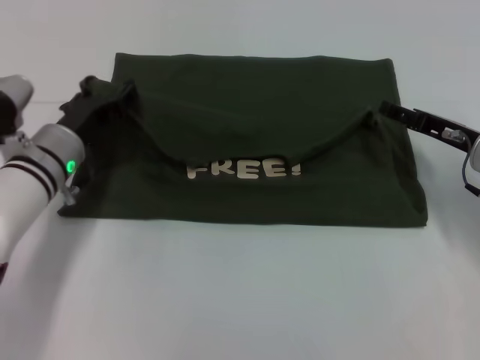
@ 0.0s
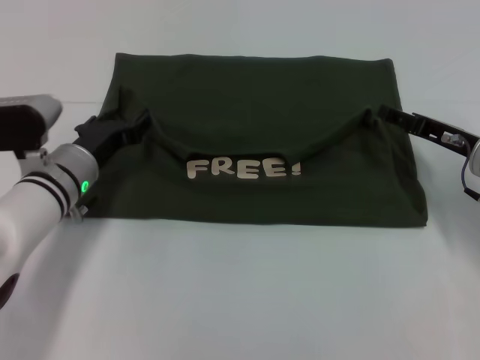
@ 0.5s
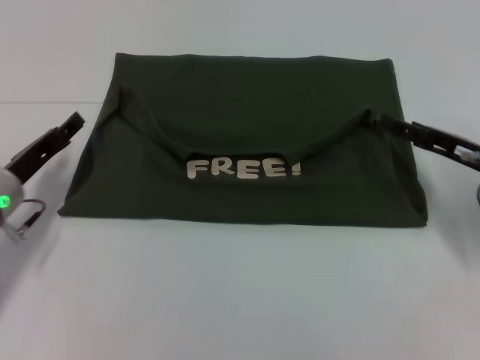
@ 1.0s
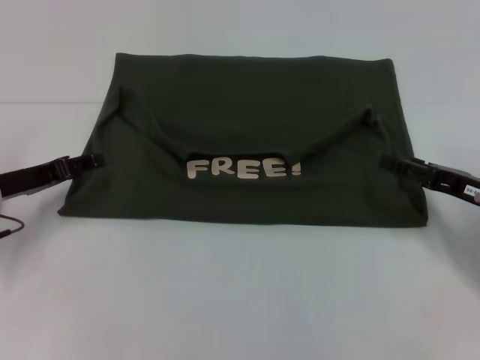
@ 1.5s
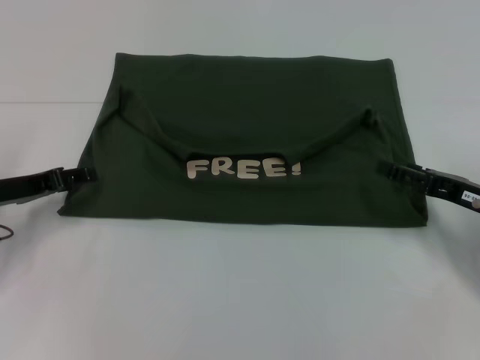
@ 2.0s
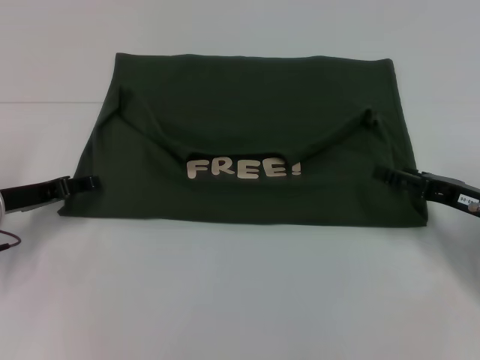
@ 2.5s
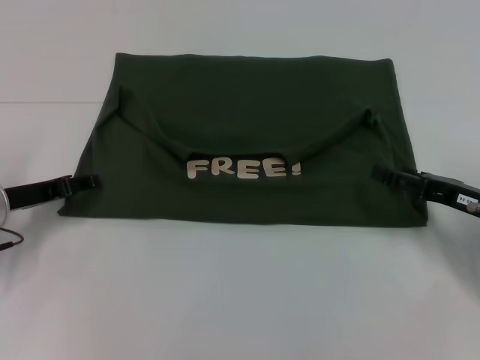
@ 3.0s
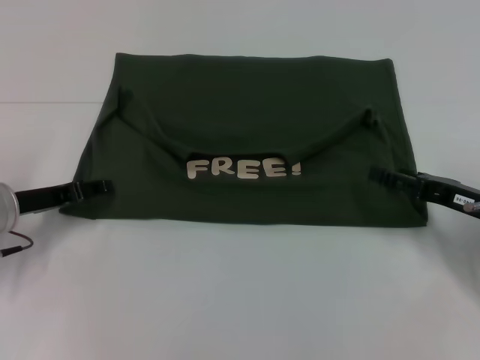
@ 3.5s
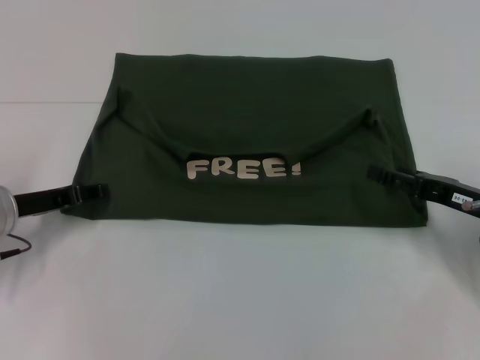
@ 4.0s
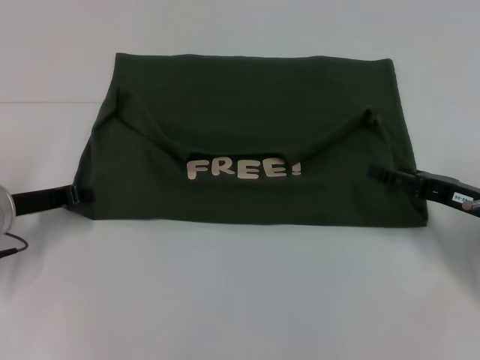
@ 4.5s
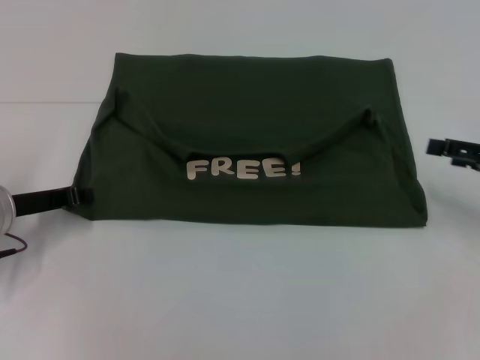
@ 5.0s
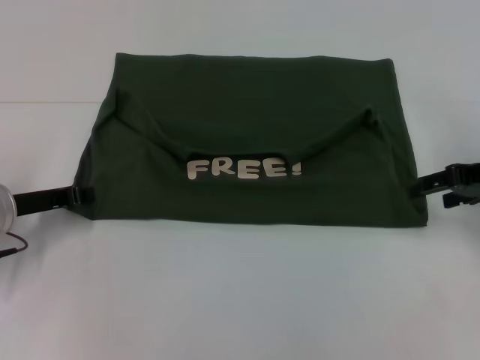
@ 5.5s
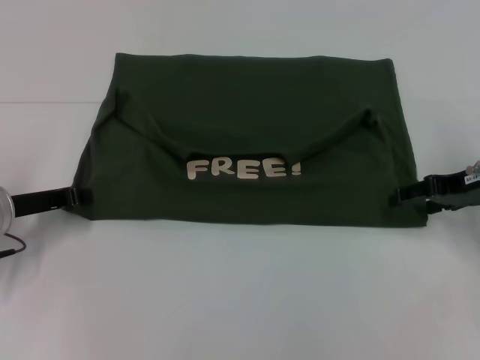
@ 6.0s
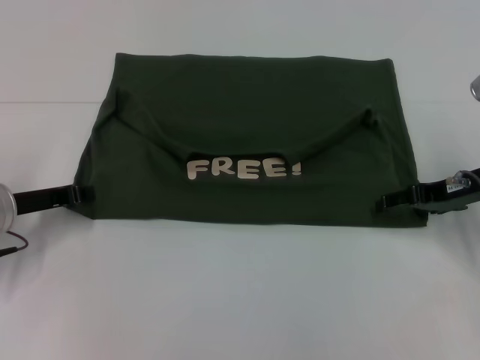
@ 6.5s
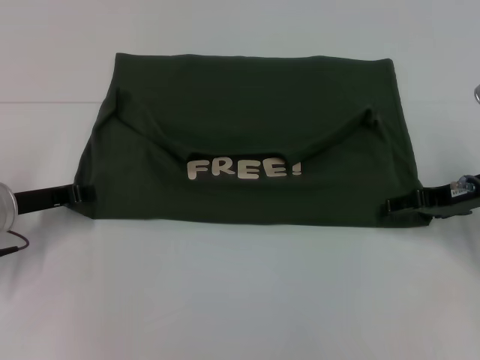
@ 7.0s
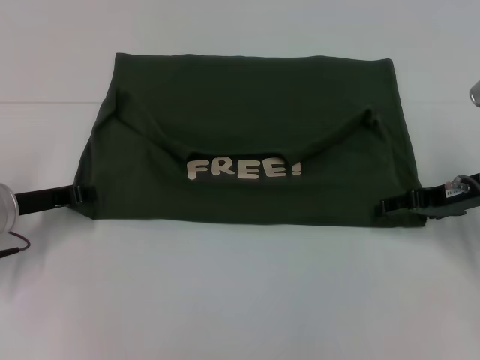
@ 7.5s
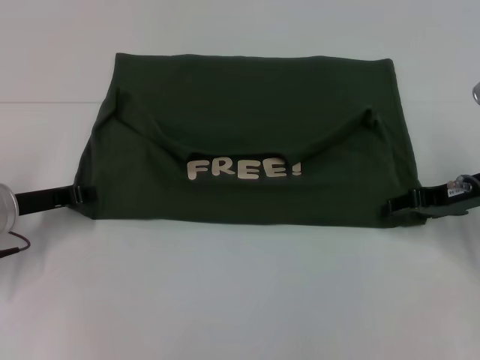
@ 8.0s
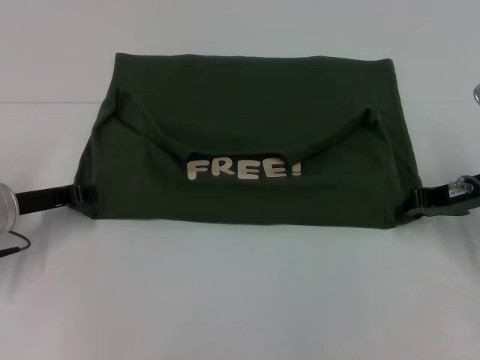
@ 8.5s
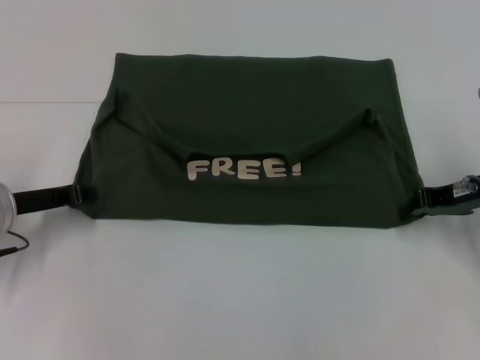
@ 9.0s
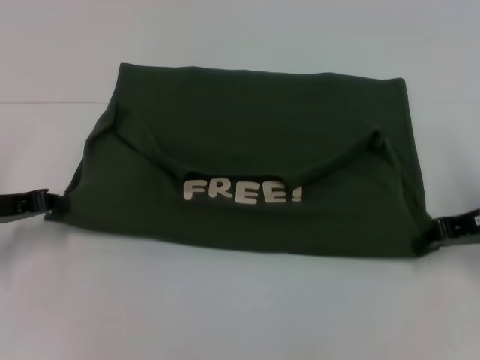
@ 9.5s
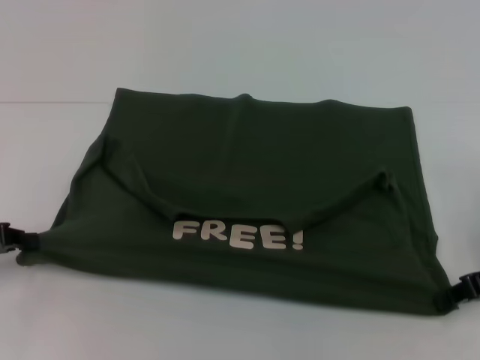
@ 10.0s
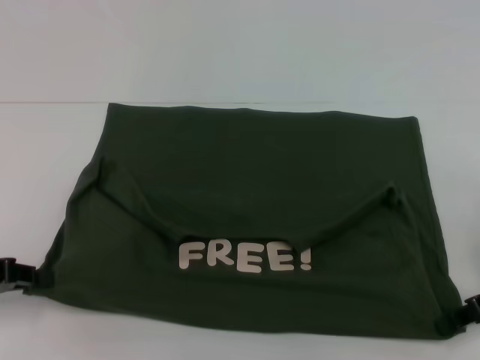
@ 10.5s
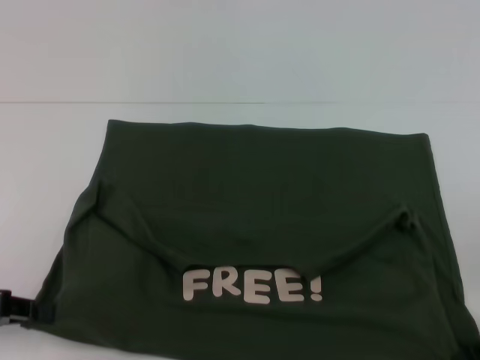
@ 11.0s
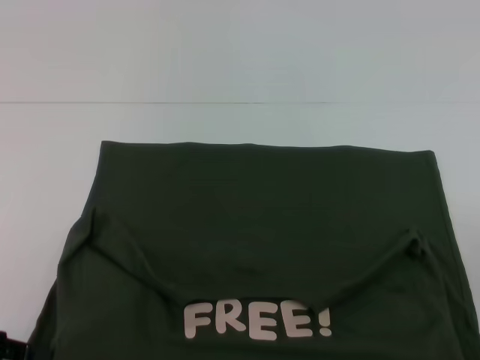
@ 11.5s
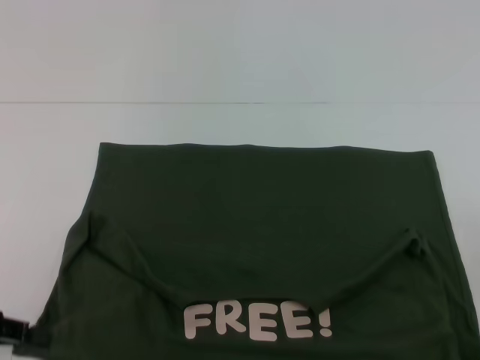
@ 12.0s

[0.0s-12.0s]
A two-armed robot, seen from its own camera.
Step, 0.5s to 11.5s: Pull the clothes with your left hand.
Step, 0.5s to 11.5s: Pull the clothes with your right hand.
0.0s to 2.0s: The left gripper goes some 10 cm to the left. The right gripper goes some 5 cm backward.
2.0s to 4.0s: The grippers stay close to where they were, moving slightly.
4.0s to 6.0s: The right gripper goes approximately 10 cm upward and forward.
6.0s to 8.0s: There are only small adjustments of the grippers.
8.0s to 10.0s: The left gripper heads to the left and backward, covering roughly 10 cm. Meanwhile the right gripper shifts about 5 cm backward, and closes up.
10.0s to 12.0s: The two grippers go approximately 5 cm backward.

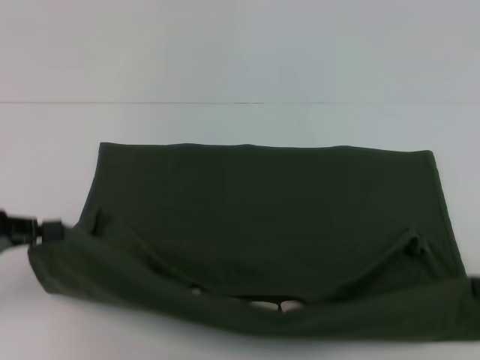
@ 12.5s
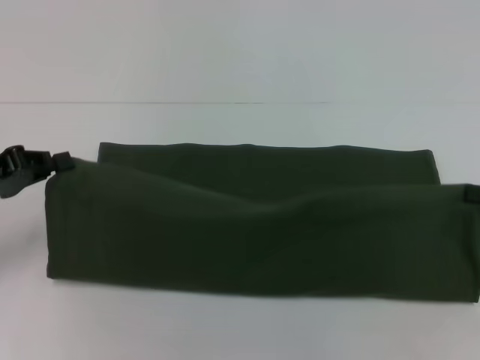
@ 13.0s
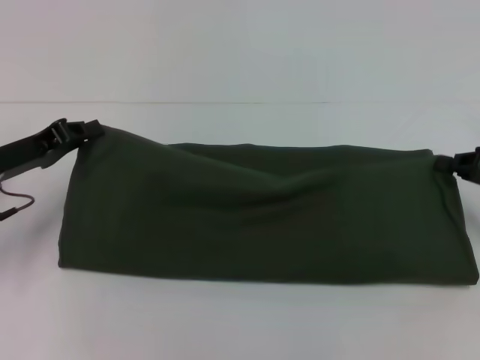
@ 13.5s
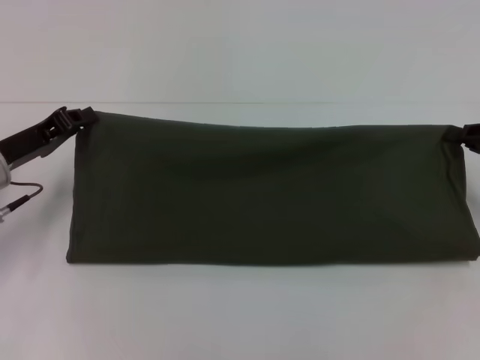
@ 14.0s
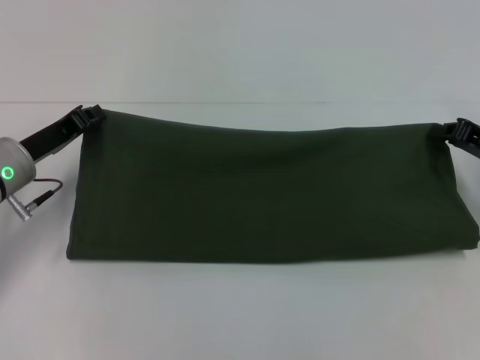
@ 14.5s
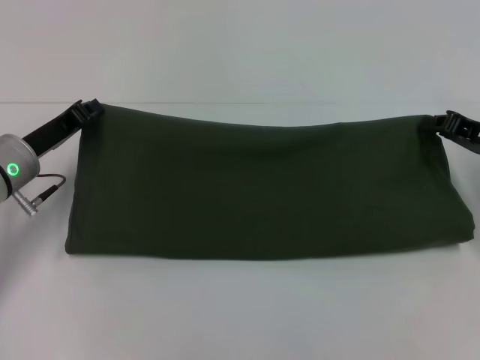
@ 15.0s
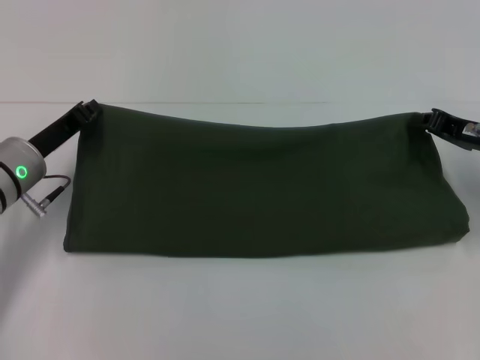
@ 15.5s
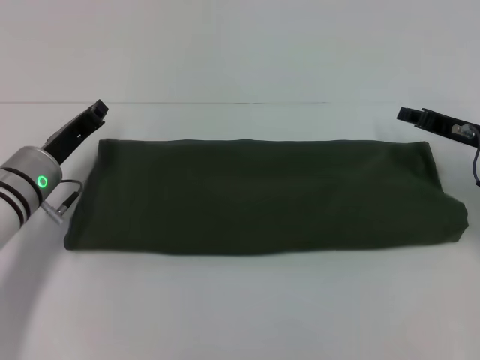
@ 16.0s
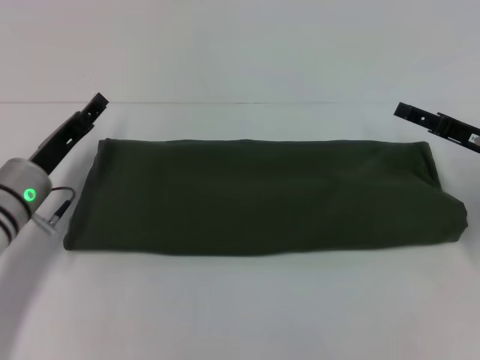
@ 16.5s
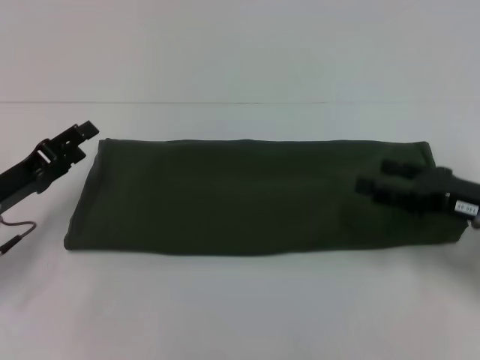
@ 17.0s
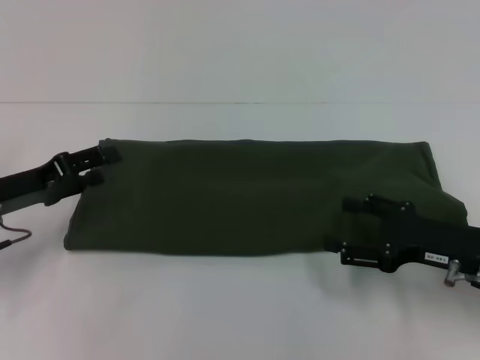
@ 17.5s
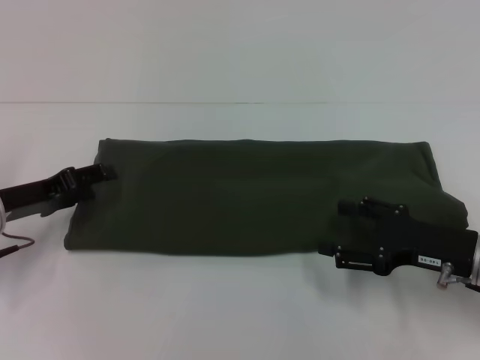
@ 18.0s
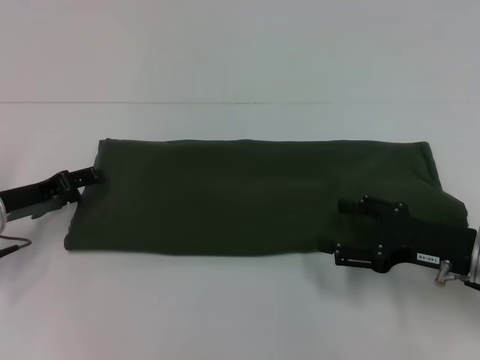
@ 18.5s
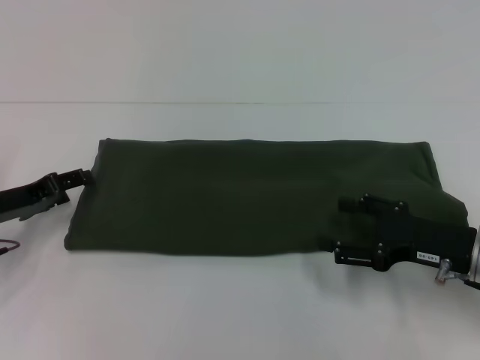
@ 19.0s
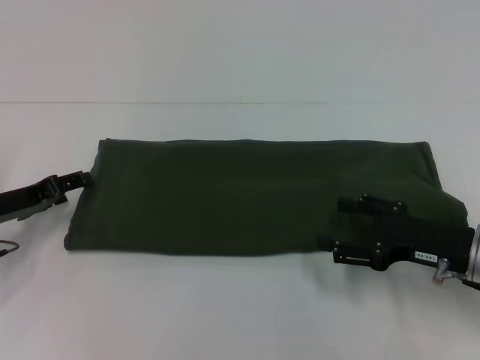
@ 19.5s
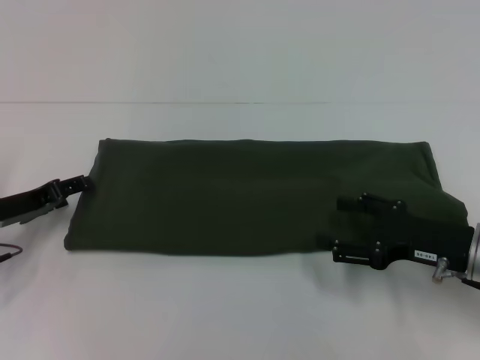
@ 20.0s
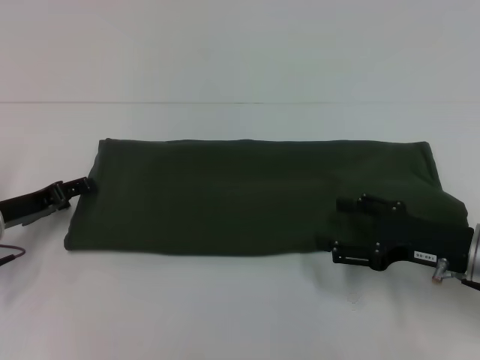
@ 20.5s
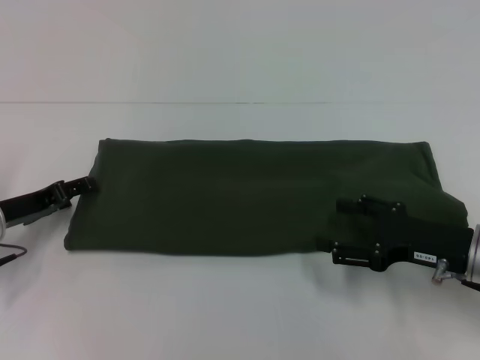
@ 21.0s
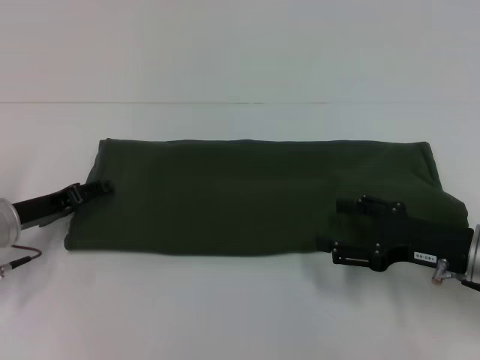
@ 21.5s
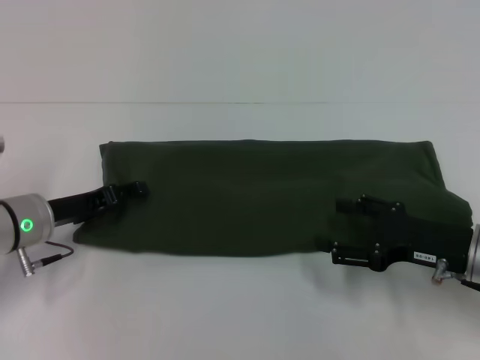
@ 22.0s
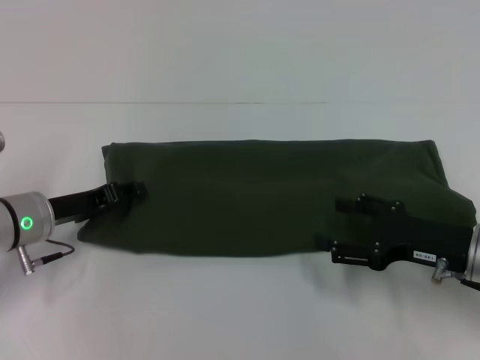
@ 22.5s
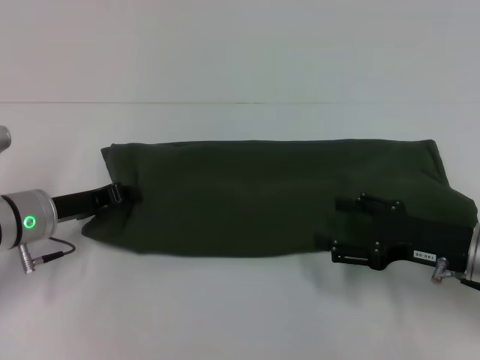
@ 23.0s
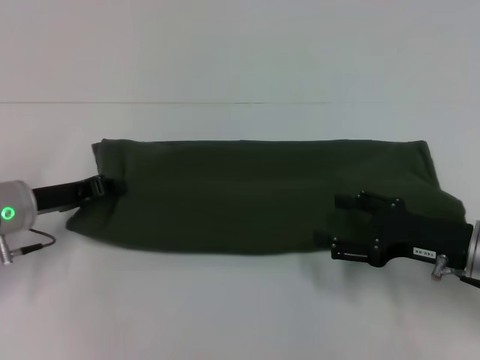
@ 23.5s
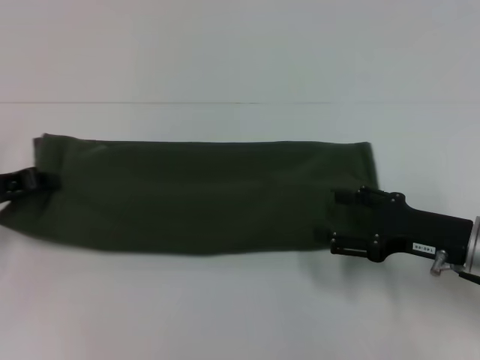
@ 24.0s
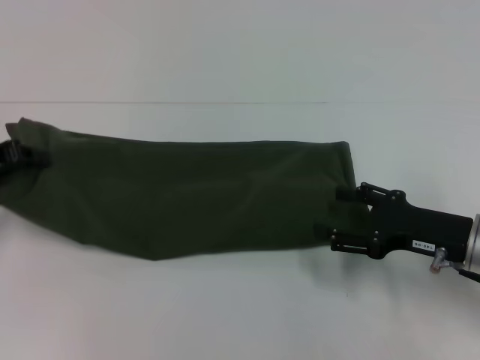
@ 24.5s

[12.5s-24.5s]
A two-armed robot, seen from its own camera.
Step, 12.5s to 16.5s: Fold the clothes with your right hand.
12.5s to 14.5s: The left gripper shifts some 15 cm forward and to the right. The right gripper is displaced forward and to the left by roughly 10 cm.
14.5s to 16.5s: The right gripper opens up; the left gripper opens.
16.5s to 18.5s: The right gripper travels backward by approximately 10 cm, and opens up, while the left gripper moves to the left, some 5 cm, and opens its fingers.
18.5s to 20.5s: The grippers make only small movements.
20.5s to 22.5s: The left gripper moves to the right, approximately 5 cm.
22.5s to 24.5s: The left gripper shifts about 10 cm to the left and upward, and closes up.

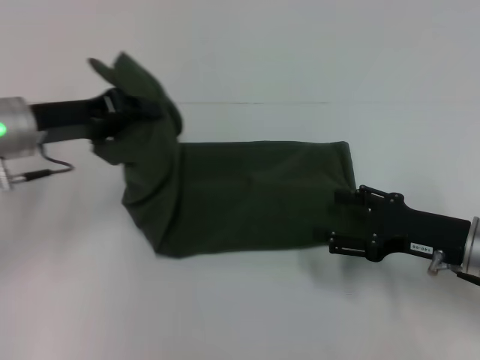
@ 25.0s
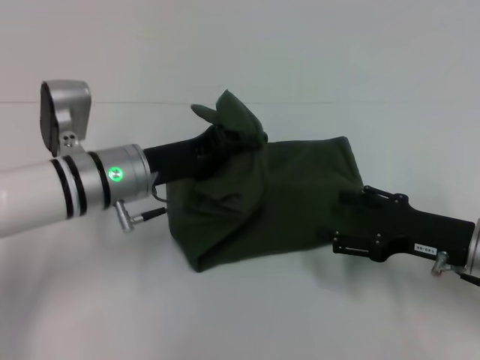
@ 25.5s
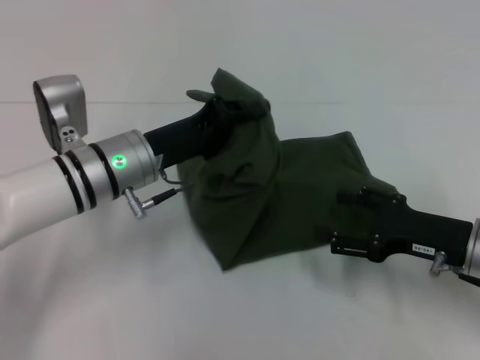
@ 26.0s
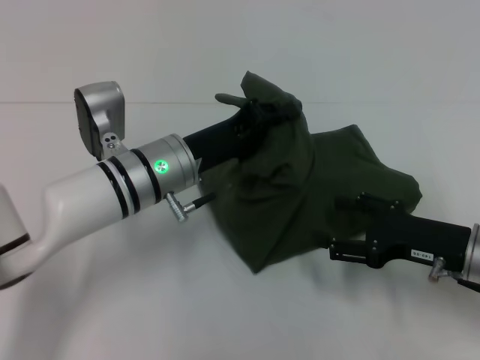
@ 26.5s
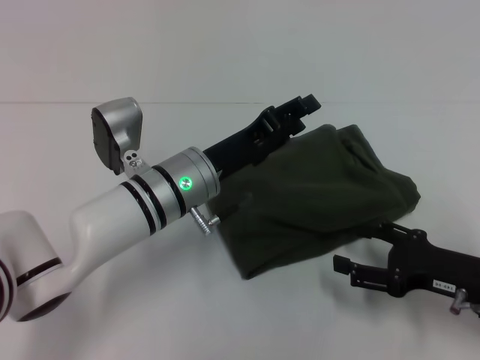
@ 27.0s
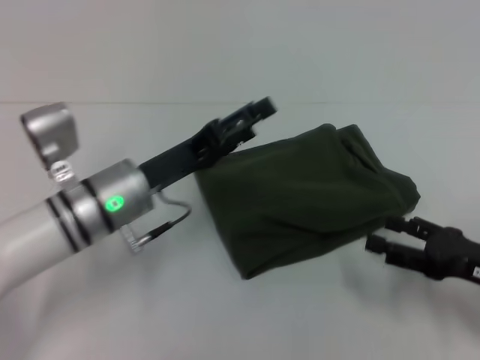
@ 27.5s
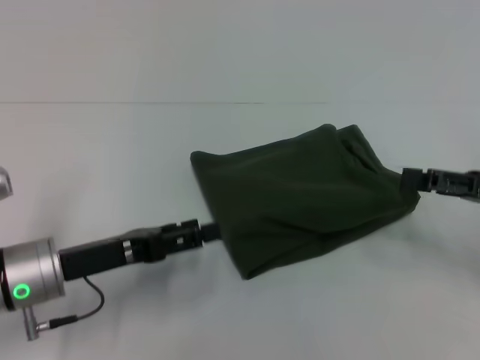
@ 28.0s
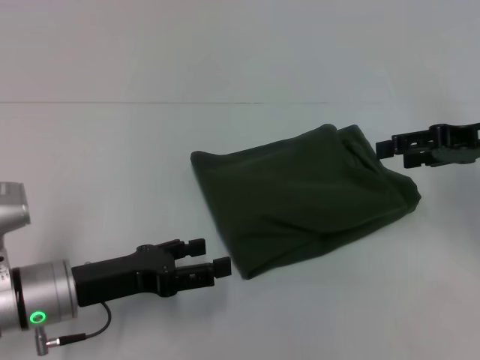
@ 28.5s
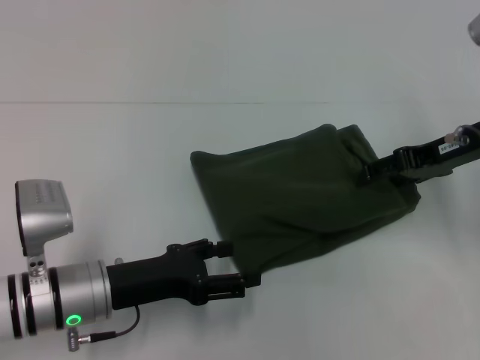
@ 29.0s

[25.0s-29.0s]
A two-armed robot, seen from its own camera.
Step, 25.0s to 27.0s: Fold the clothes with your left hand.
25.0s to 27.0s: The left gripper heads to the right and downward, covering some 20 cm.
27.0s to 29.0s: The left gripper heads to the left and backward, covering some 15 cm, and opens up. Meanwhile the right gripper goes about 20 cm forward and upward.
